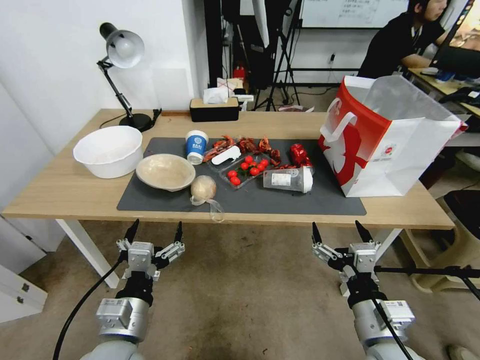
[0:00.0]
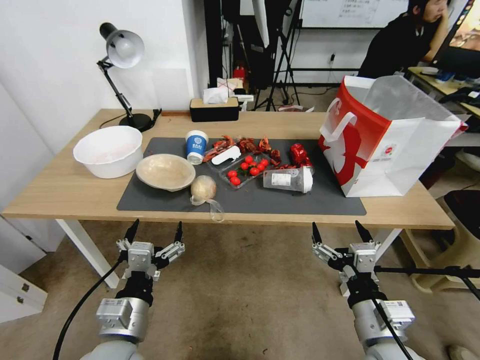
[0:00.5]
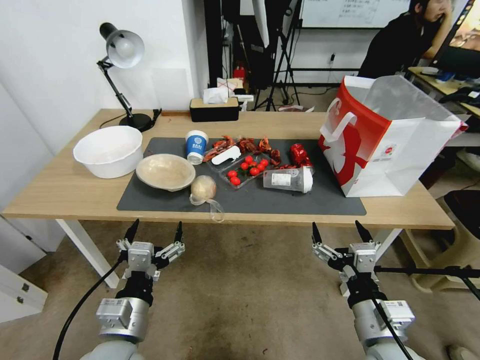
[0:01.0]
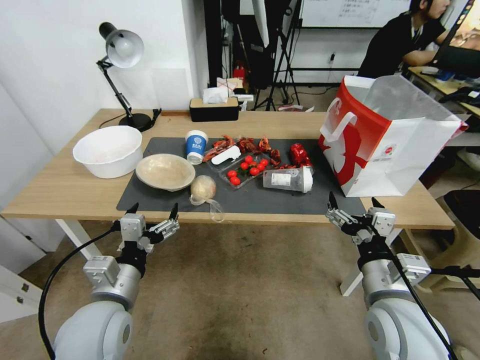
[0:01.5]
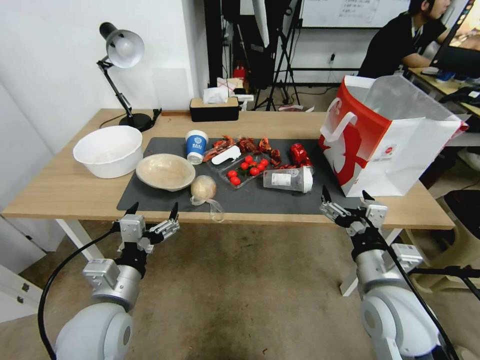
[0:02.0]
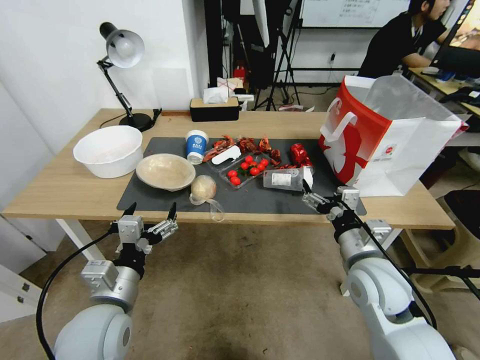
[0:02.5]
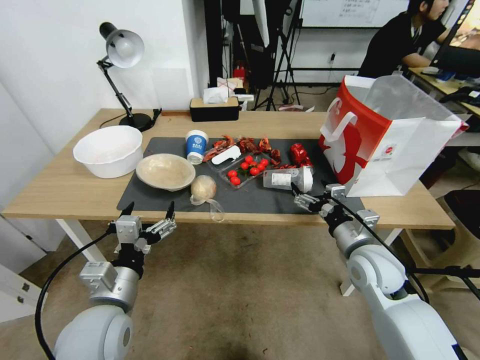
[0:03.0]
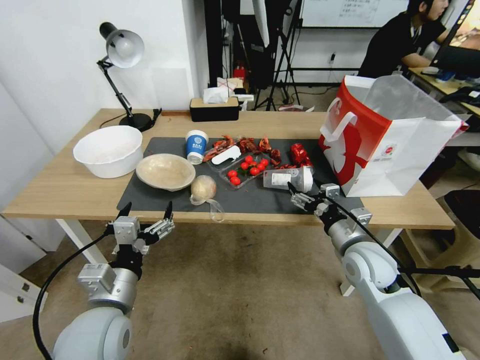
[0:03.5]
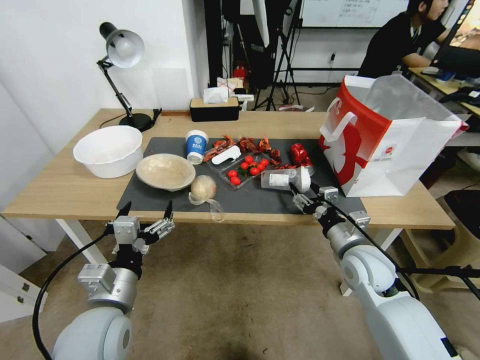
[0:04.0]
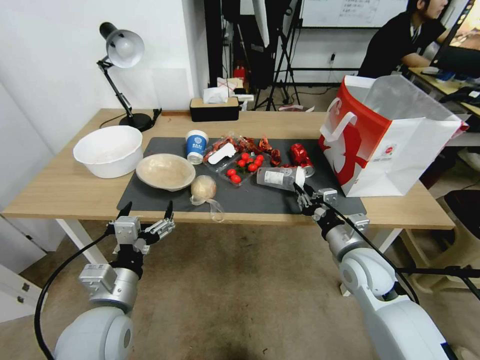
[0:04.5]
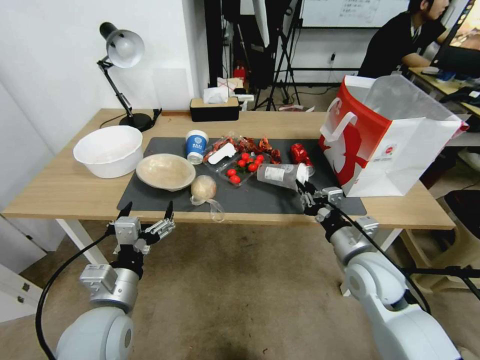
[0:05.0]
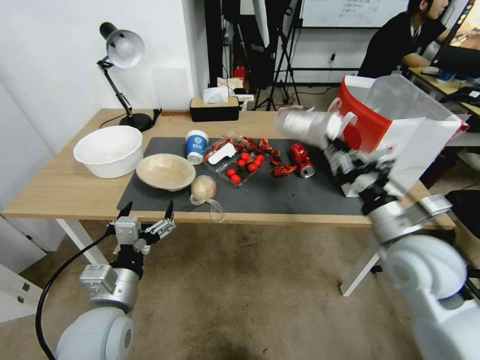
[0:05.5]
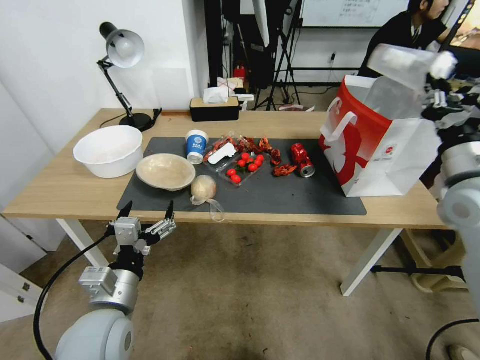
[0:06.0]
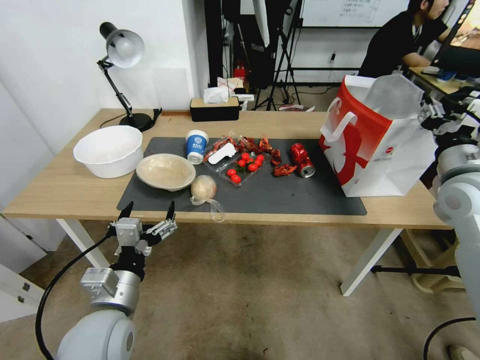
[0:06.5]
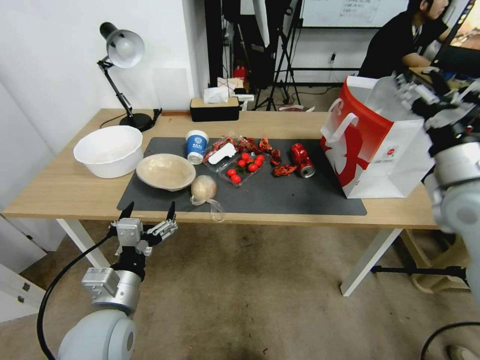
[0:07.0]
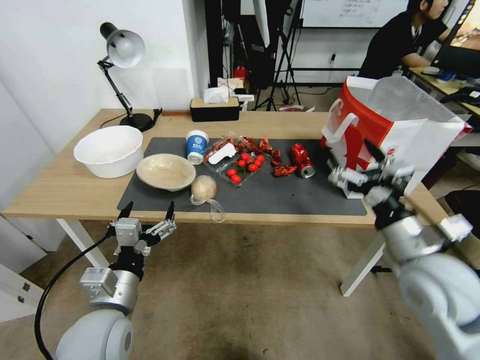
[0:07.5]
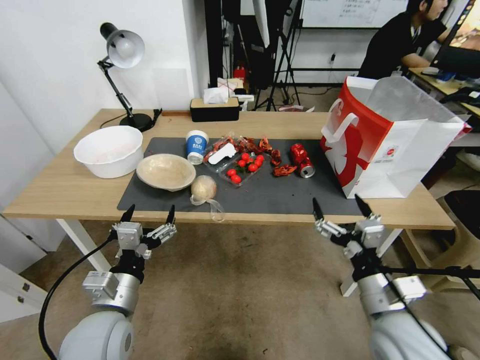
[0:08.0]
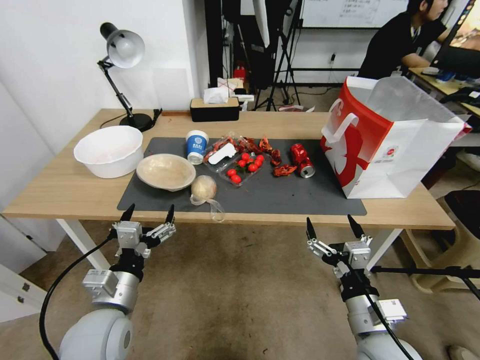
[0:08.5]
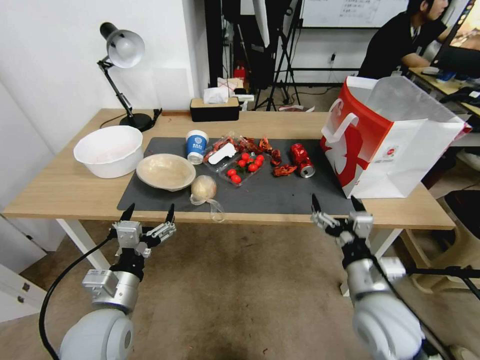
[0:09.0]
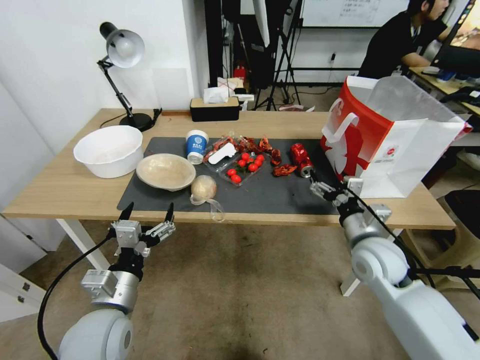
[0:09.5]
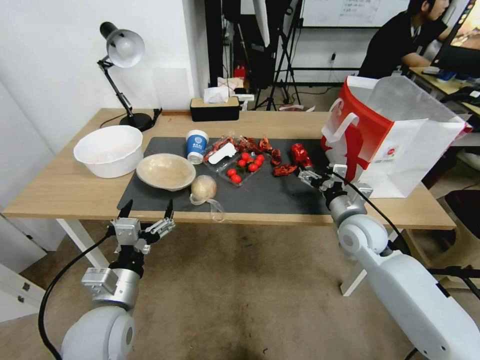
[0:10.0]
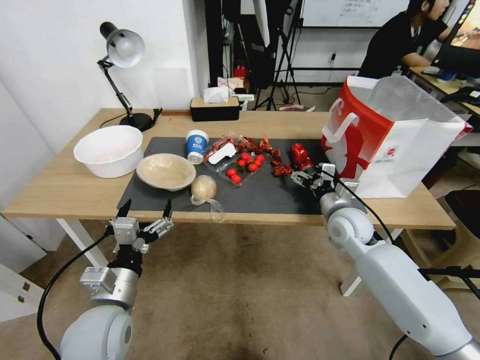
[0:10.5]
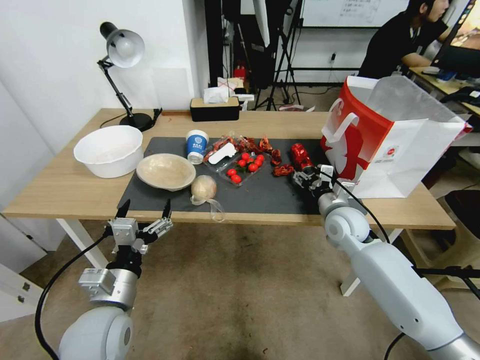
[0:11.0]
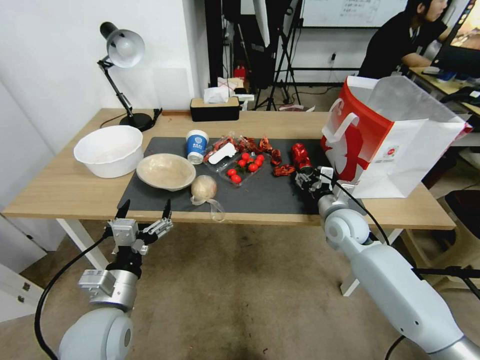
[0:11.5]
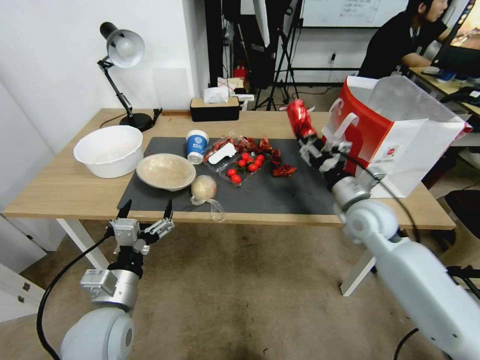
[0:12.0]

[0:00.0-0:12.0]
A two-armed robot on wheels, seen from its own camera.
2.0 to 4.0 s: The right gripper heads forward and downward, covering roughly 10 cm, and closes.
4.0 to 6.0 s: The right gripper heads upward and to the right, covering roughly 20 cm, and closes.
6.0 to 8.0 s: The right gripper travels downward, backward and to the left by about 25 cm, and opens up.
8.0 to 10.0 s: The right gripper shifts some 20 cm forward.
10.0 to 12.0 s: The right gripper closes its fingers.

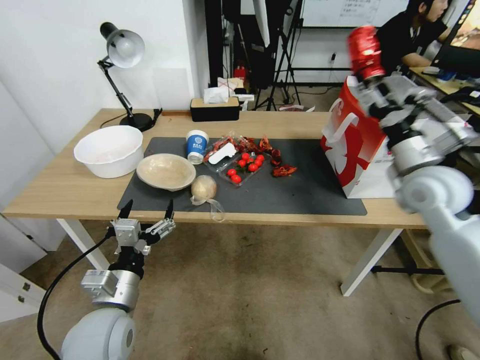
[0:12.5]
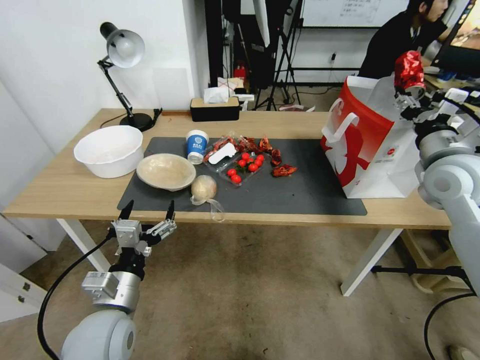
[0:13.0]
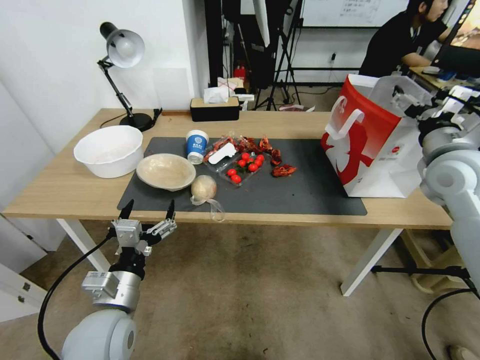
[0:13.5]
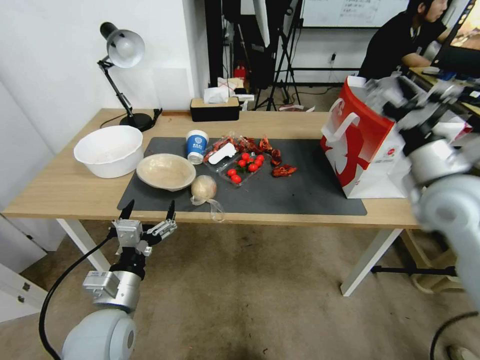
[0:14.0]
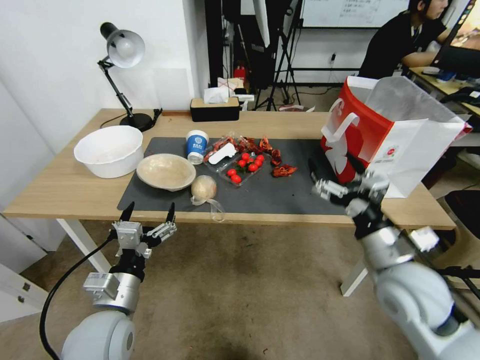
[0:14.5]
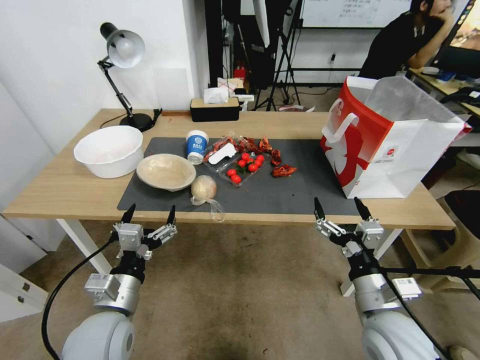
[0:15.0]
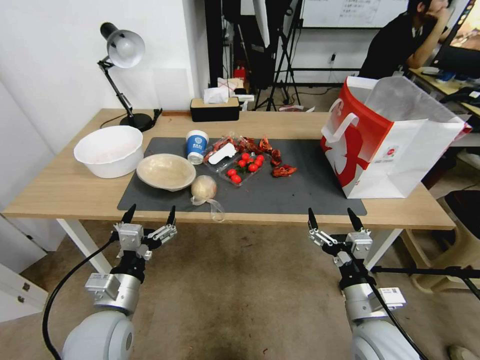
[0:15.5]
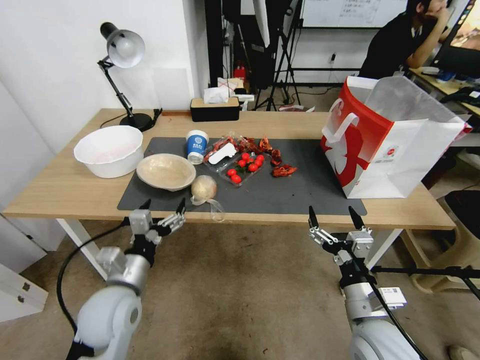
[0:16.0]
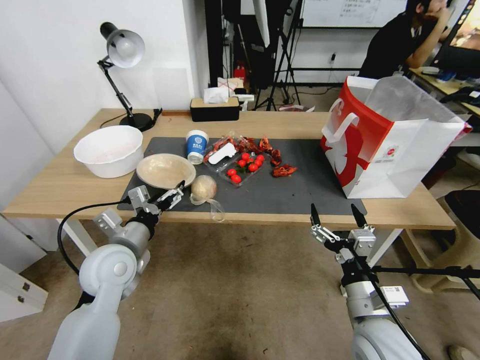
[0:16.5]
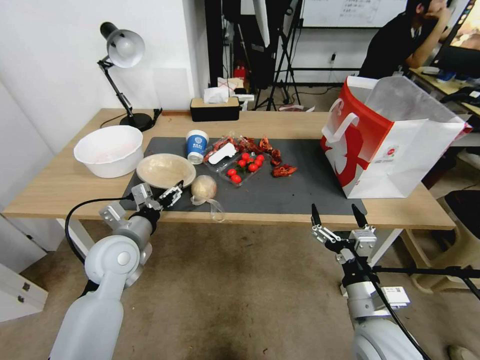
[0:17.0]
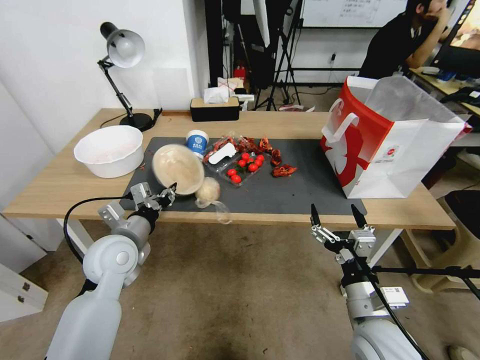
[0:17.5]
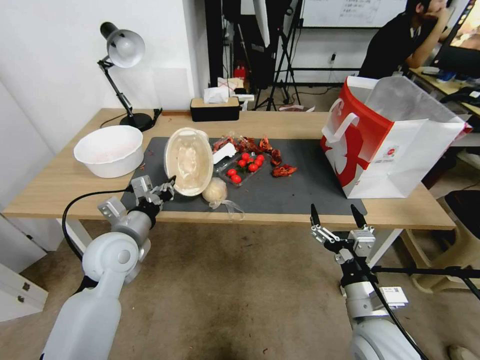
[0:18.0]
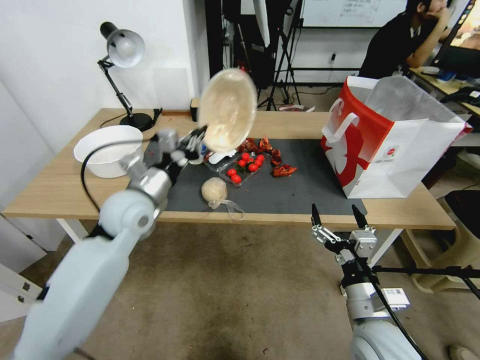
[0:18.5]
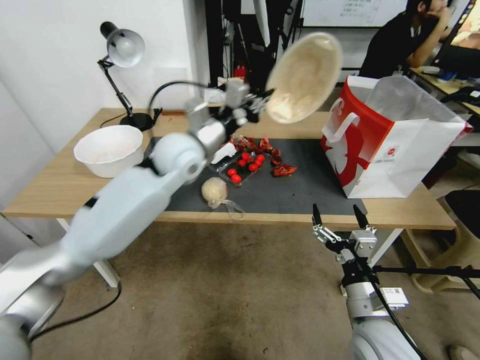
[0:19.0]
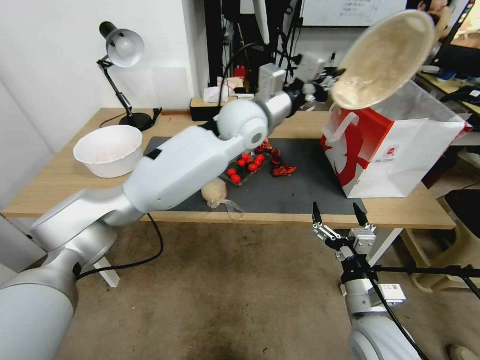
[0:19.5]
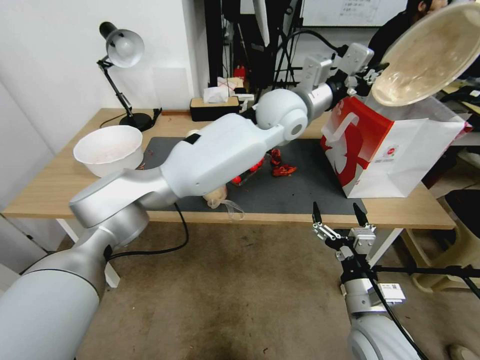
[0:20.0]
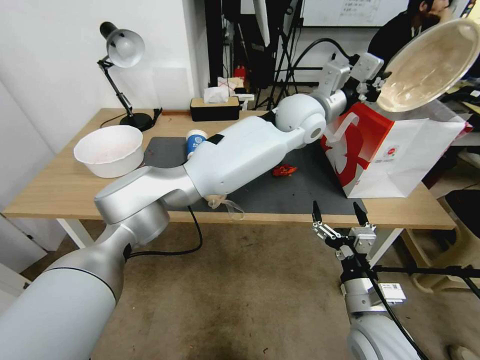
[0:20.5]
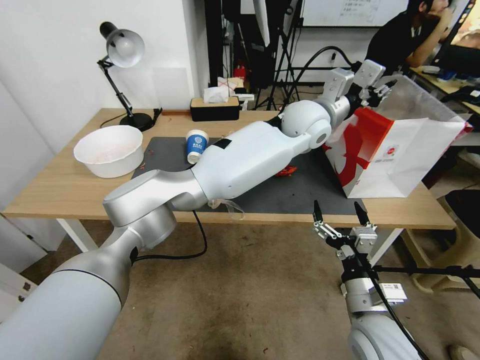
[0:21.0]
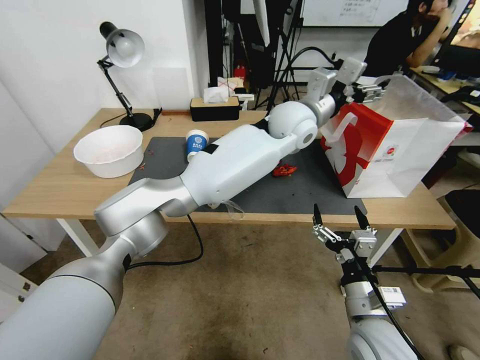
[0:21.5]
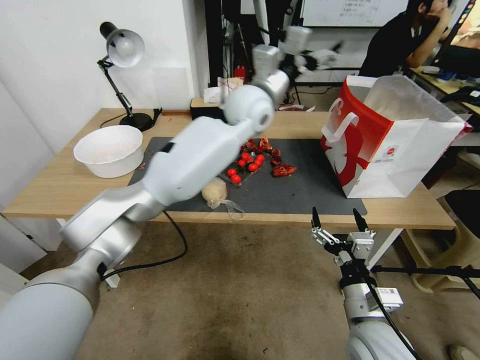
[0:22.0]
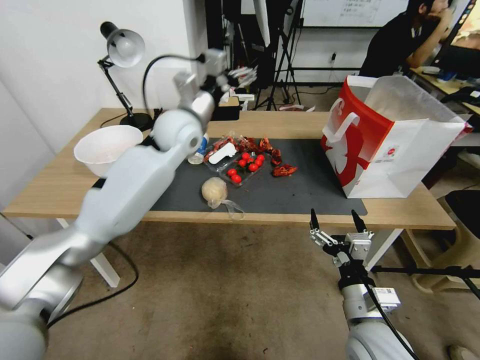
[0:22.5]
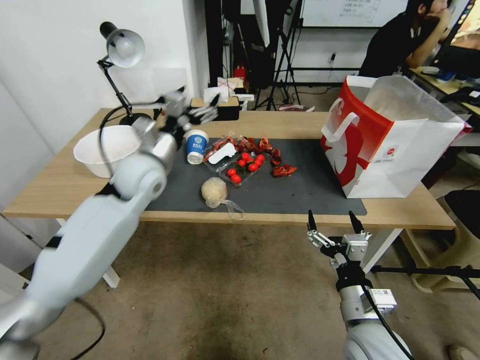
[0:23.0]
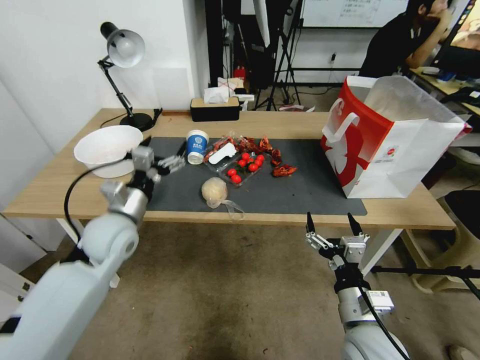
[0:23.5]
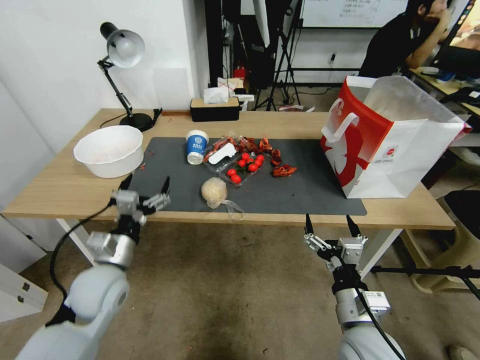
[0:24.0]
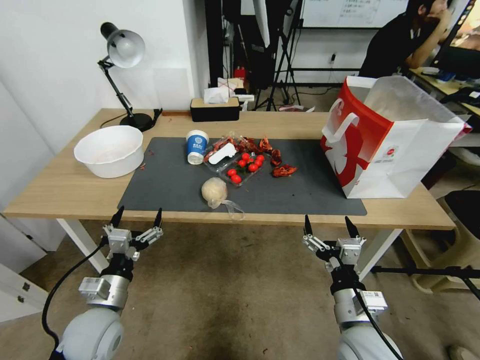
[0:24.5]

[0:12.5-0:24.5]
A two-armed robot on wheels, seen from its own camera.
12.5 to 14.5 s: The right gripper moves backward, downward and to the left, roughly 20 cm, and opens its fingers.
14.5 to 16.5 s: The right gripper goes some 10 cm downward and backward. Meanwhile the left gripper is displaced forward by about 10 cm.
16.5 to 18.5 s: The left gripper travels forward by roughly 5 cm, and closes its fingers.
18.5 to 20.5 s: The left gripper shifts roughly 40 cm to the right, forward and upward.
20.5 to 22.5 s: The left gripper is displaced to the left by approximately 25 cm, and opens its fingers.
22.5 to 24.5 s: The left gripper goes approximately 40 cm backward, downward and to the left.

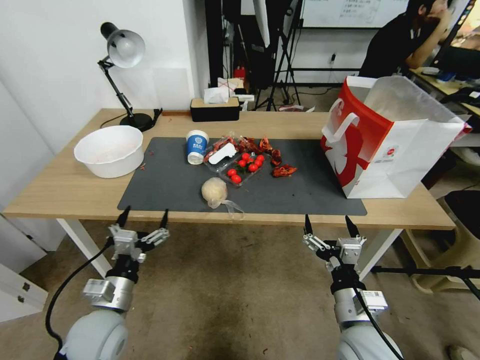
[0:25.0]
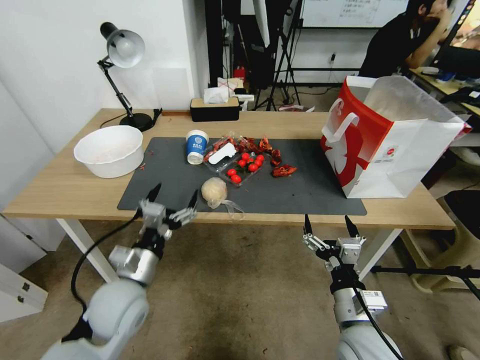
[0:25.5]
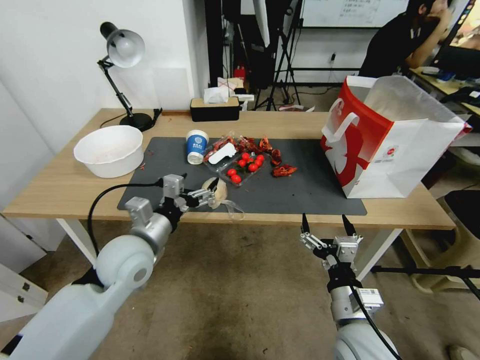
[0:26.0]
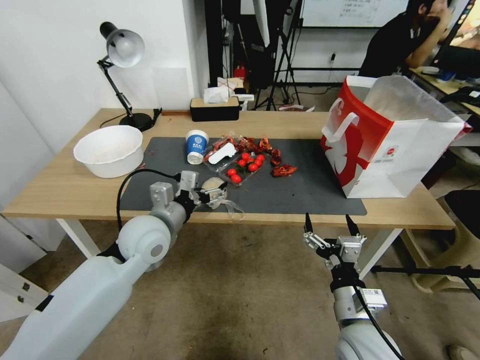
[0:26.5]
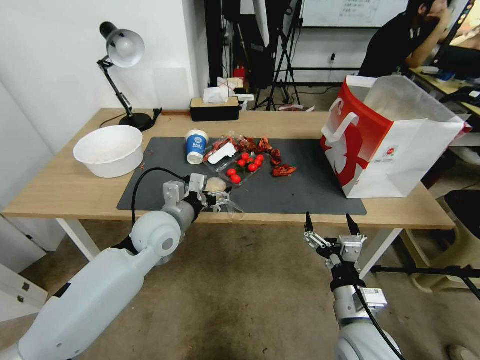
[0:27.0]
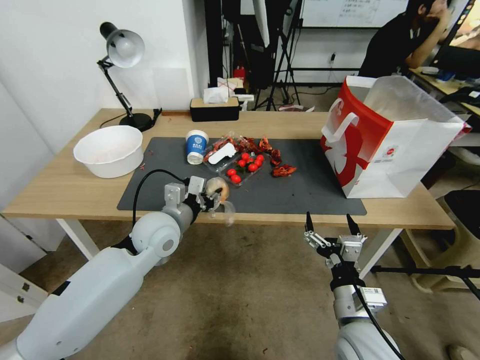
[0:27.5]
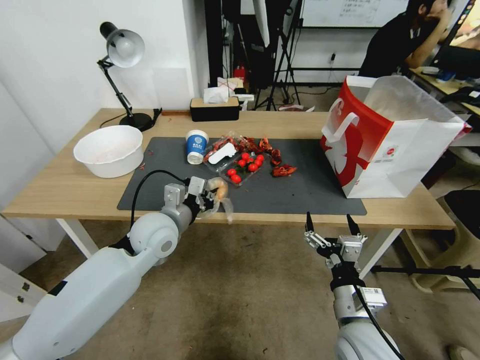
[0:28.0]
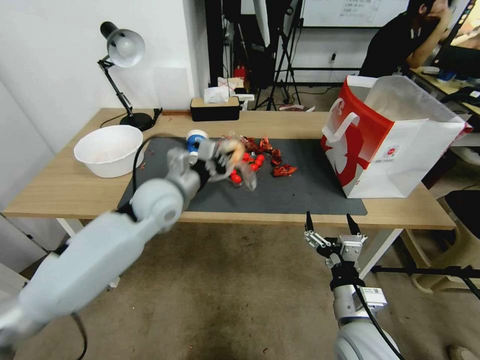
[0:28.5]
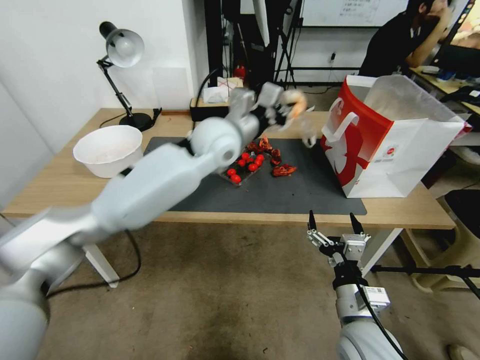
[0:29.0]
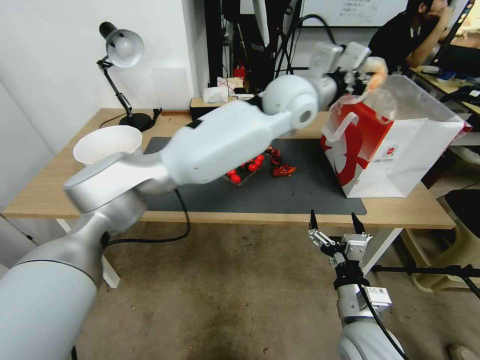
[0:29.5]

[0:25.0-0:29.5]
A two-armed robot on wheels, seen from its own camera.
25.0 to 27.0 s: The left gripper is displaced forward, upward and to the right by approximately 20 cm.
27.0 to 29.5 s: The left gripper moves to the right, upward and forward, some 40 cm, and closes its fingers.
